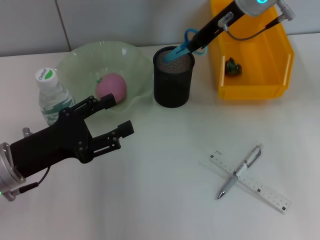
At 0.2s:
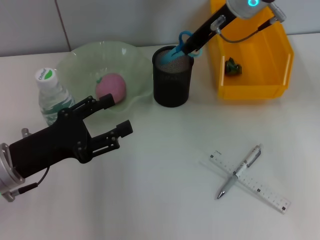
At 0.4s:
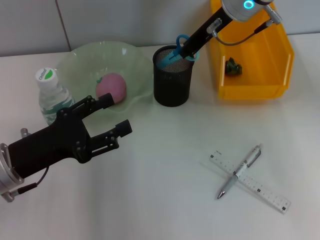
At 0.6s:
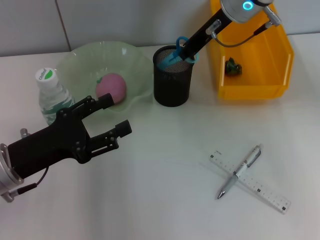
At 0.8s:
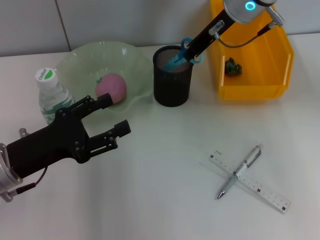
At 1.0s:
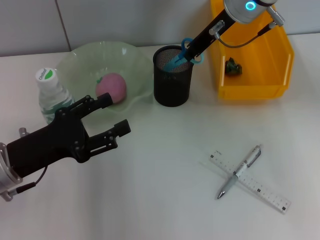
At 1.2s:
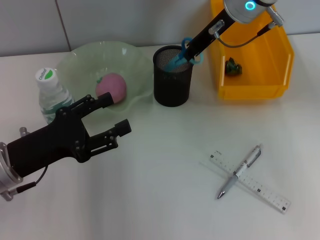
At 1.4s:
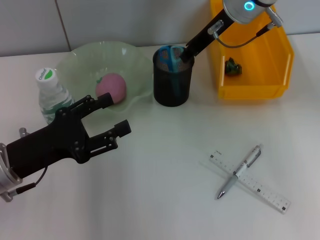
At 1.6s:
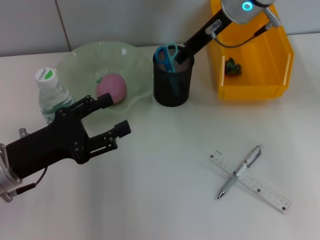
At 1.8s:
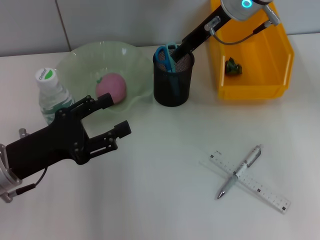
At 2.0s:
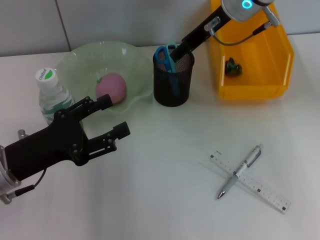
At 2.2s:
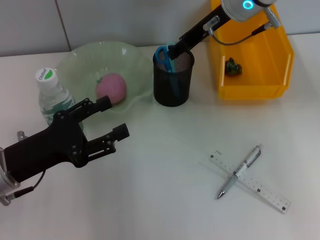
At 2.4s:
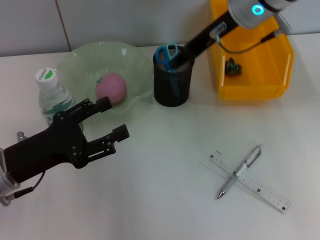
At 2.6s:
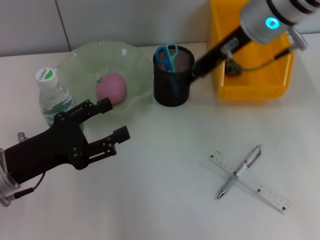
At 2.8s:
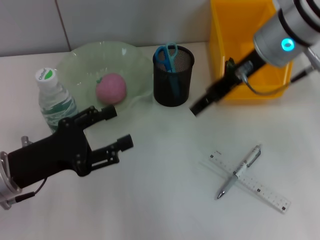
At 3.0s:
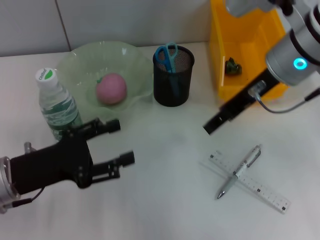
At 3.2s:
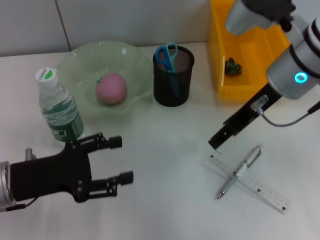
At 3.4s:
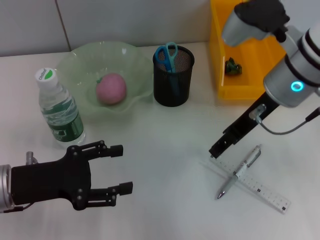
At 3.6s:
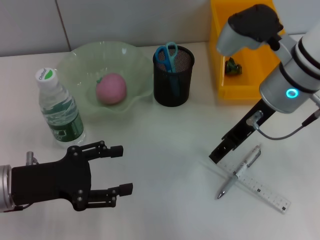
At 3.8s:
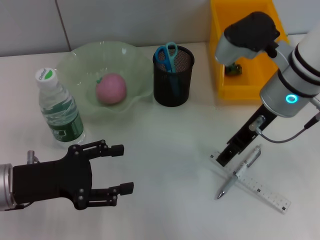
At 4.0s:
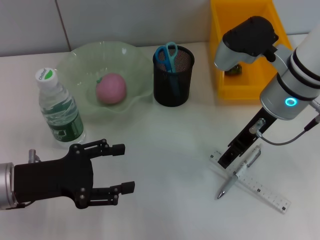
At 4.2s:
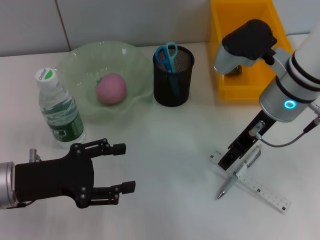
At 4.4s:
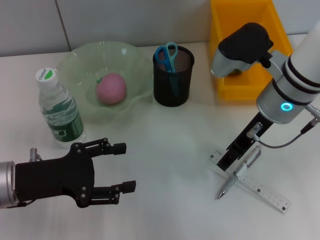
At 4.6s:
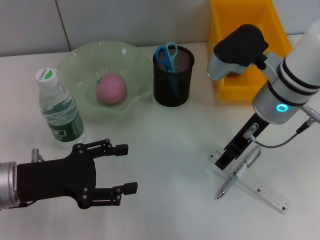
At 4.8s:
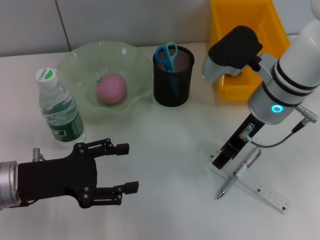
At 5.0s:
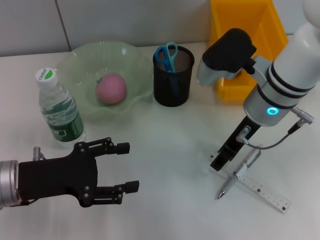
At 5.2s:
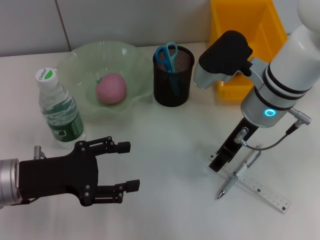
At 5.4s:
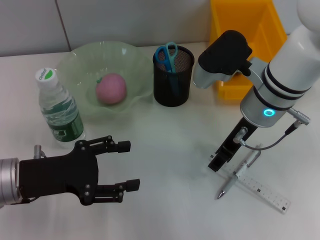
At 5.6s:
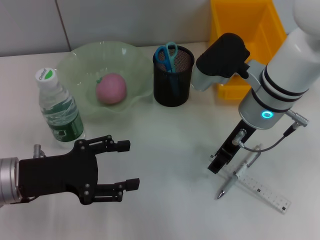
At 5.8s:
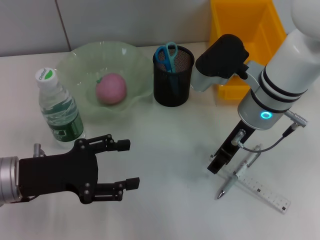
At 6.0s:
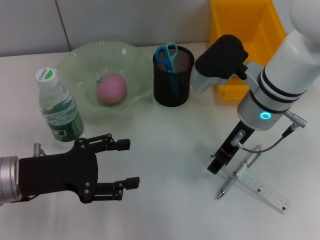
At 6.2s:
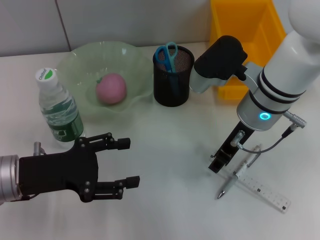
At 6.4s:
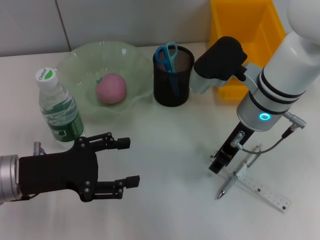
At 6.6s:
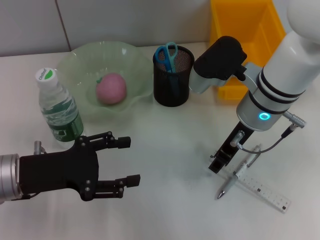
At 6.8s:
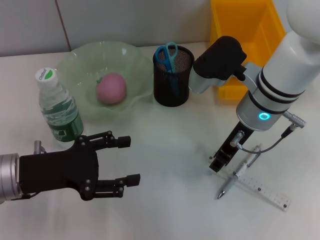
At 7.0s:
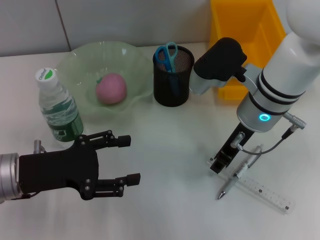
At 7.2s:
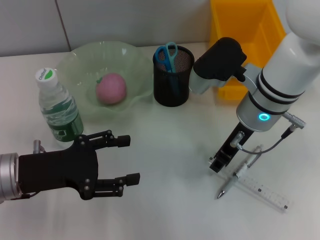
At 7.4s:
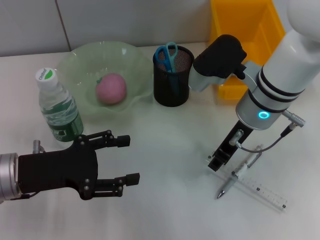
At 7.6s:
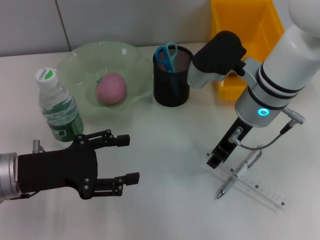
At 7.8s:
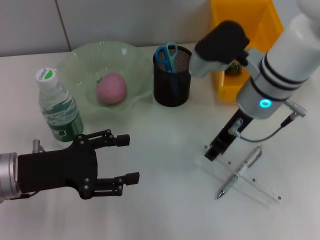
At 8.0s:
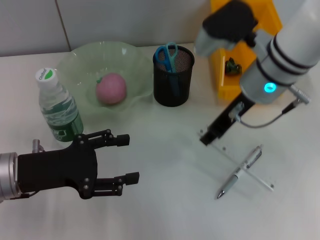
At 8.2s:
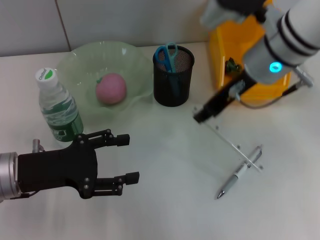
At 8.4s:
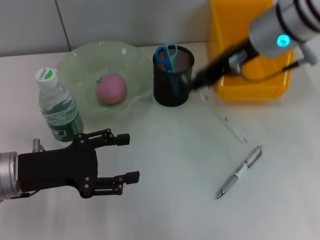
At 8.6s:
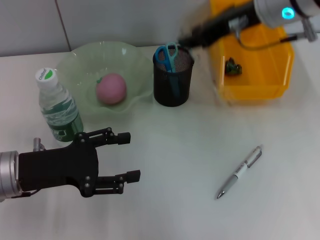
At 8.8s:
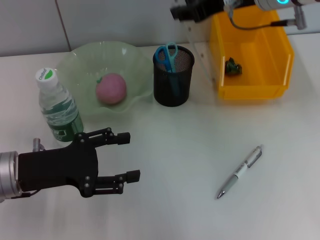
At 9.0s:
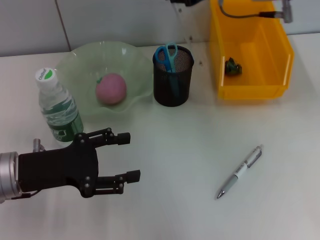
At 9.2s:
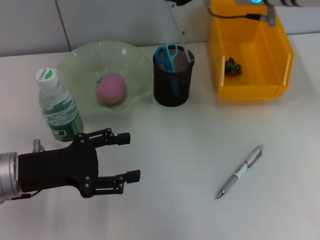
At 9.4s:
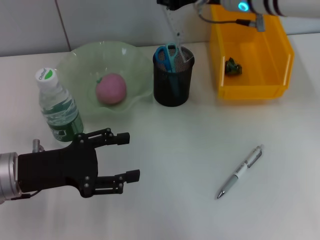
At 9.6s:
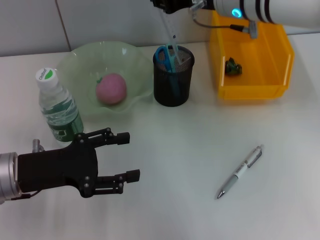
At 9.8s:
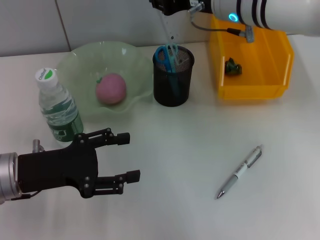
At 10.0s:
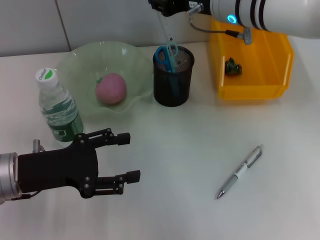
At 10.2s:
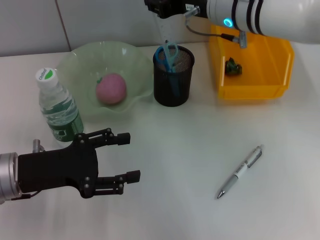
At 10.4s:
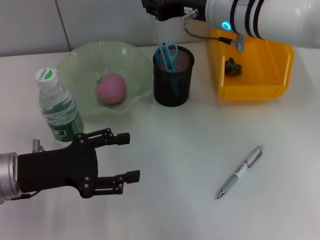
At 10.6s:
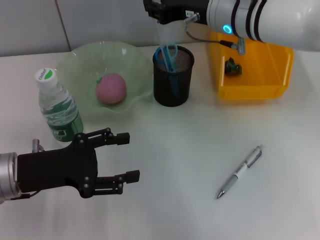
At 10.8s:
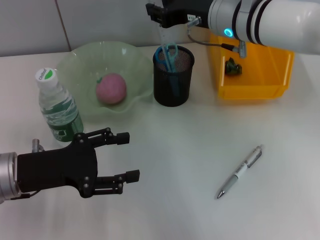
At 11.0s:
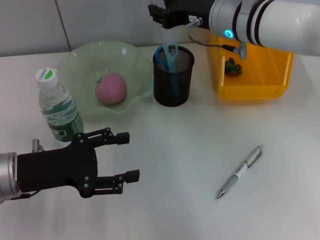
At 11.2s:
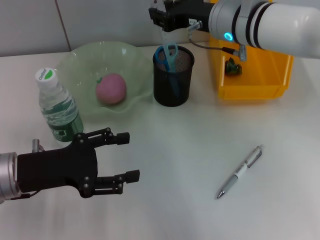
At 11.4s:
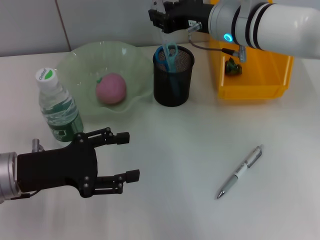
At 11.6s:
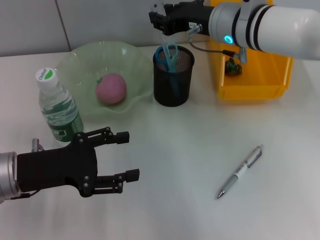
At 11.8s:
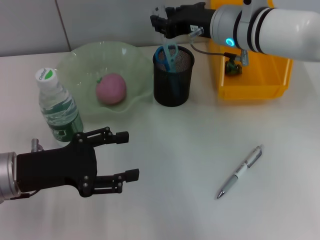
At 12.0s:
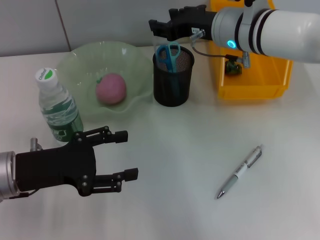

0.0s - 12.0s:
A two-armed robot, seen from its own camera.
Step, 1.6s - 7.0s: Grab the ruler with the right hand.
Step, 7.2s - 11.8s: Place the ruler into the pen holder with the right hand.
0.0s - 1.6s: The grippers make only small movements.
1.6s - 3.0s: The right gripper shifts approximately 10 cm backward, and opens.
3.0s - 4.4s: The right gripper is displaced downward by roughly 5 cm.
4.4s - 6.0s: There are only small adjustments of the grippers.
6.0s - 7.6s: The right gripper closes its fingers.
7.6s - 9.0s: The right gripper shifts about 10 cm upward.
9.0s - 10.4s: The right gripper is displaced downward by roughly 5 cm.
10.4s - 12.0s: The grippers move only a little.

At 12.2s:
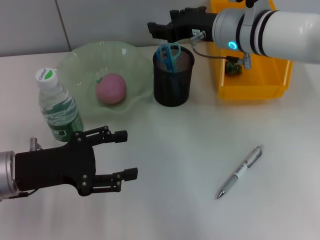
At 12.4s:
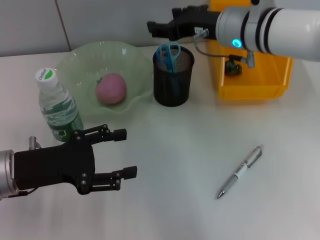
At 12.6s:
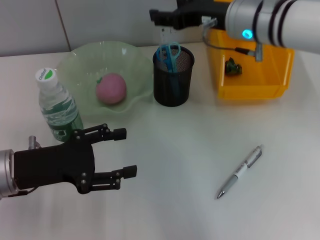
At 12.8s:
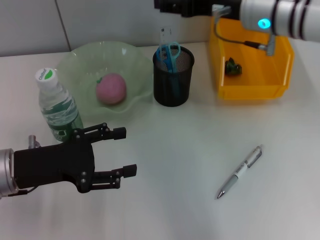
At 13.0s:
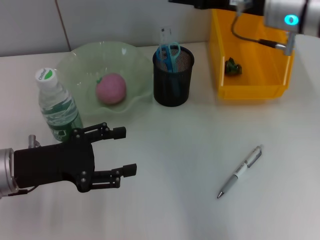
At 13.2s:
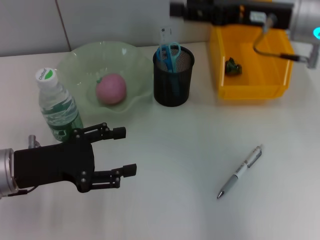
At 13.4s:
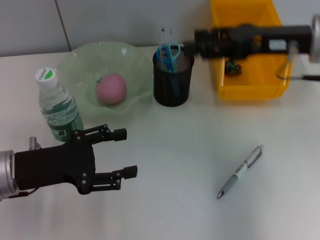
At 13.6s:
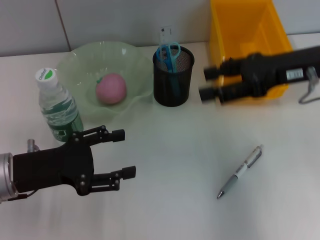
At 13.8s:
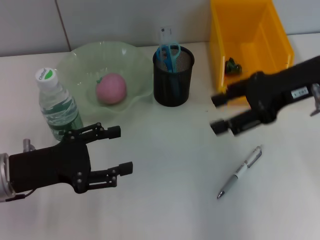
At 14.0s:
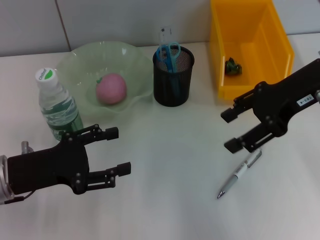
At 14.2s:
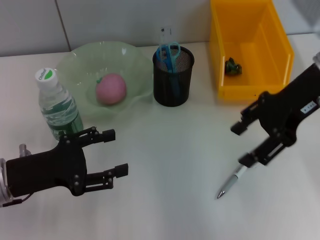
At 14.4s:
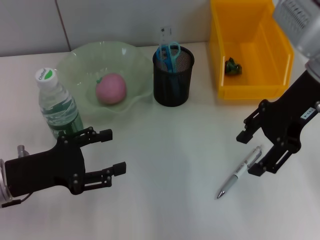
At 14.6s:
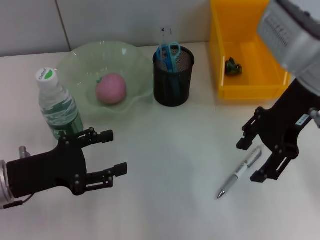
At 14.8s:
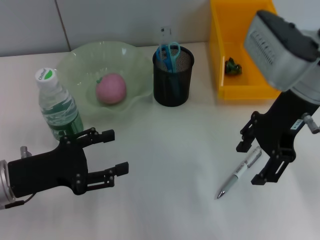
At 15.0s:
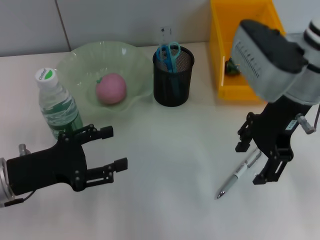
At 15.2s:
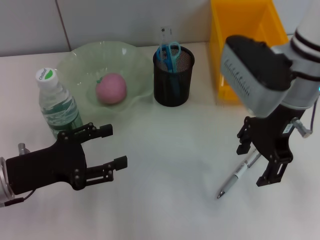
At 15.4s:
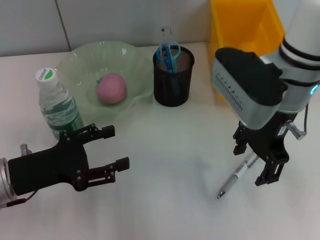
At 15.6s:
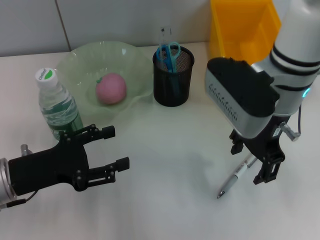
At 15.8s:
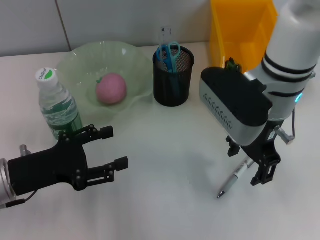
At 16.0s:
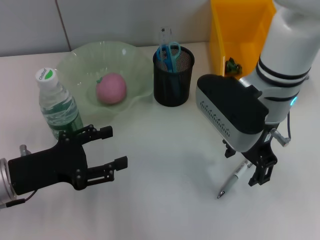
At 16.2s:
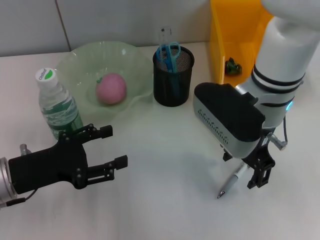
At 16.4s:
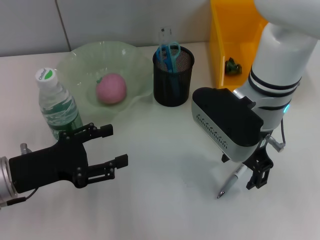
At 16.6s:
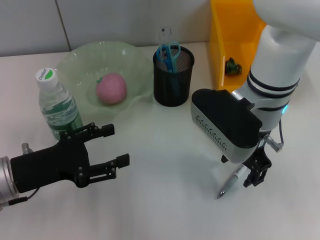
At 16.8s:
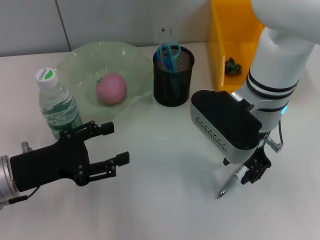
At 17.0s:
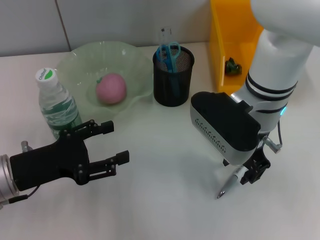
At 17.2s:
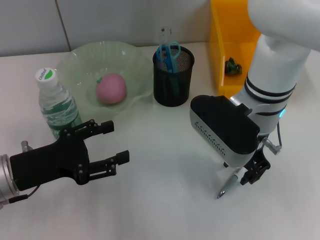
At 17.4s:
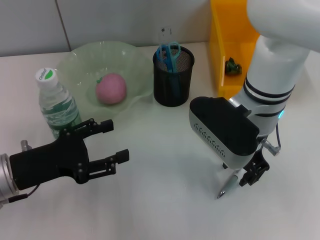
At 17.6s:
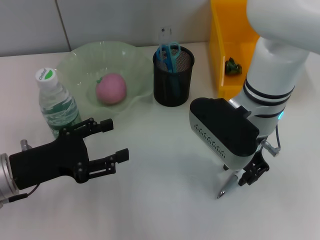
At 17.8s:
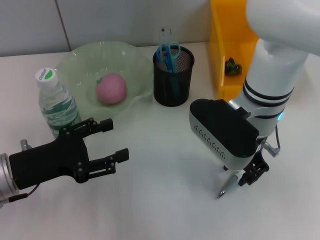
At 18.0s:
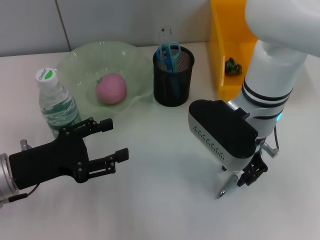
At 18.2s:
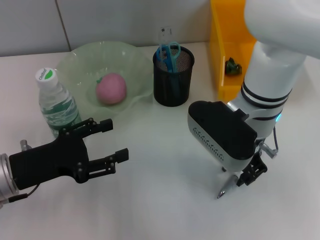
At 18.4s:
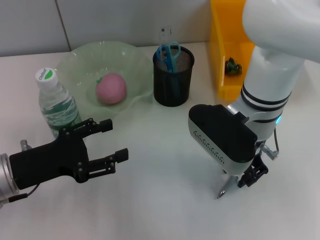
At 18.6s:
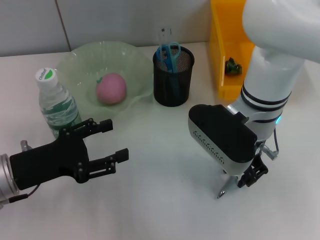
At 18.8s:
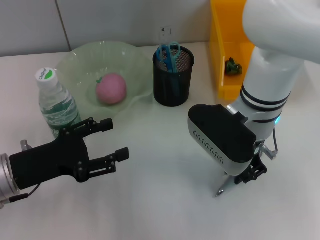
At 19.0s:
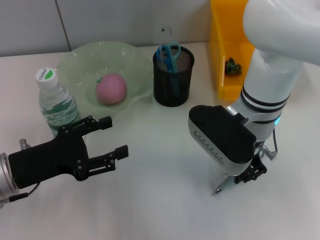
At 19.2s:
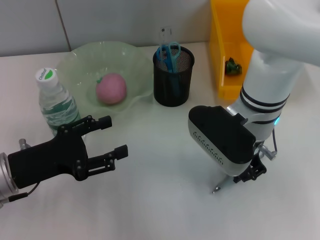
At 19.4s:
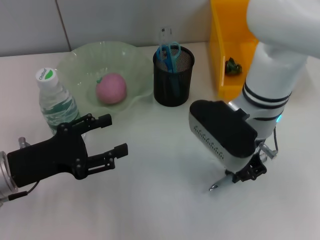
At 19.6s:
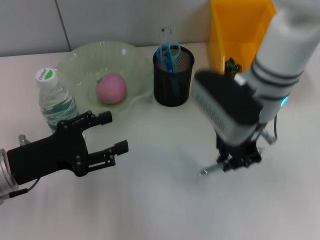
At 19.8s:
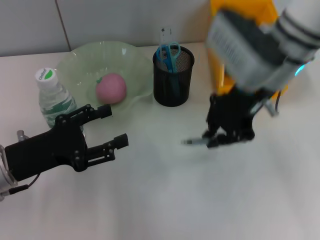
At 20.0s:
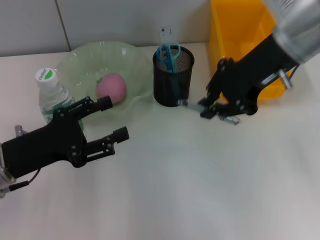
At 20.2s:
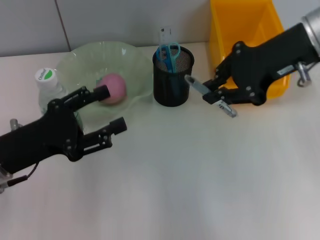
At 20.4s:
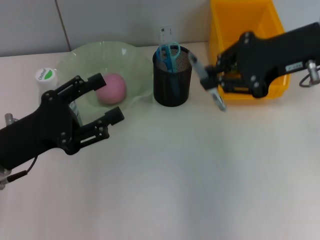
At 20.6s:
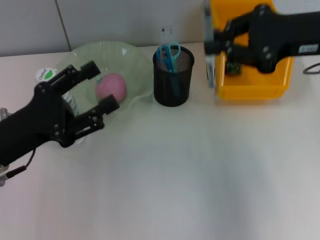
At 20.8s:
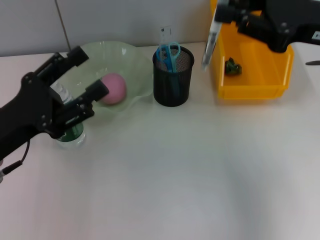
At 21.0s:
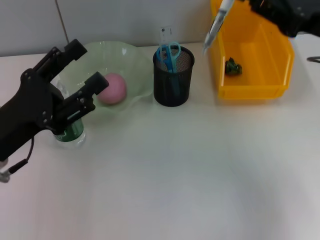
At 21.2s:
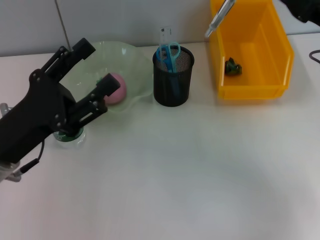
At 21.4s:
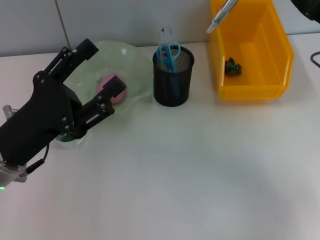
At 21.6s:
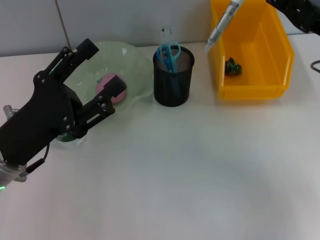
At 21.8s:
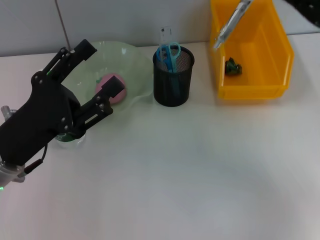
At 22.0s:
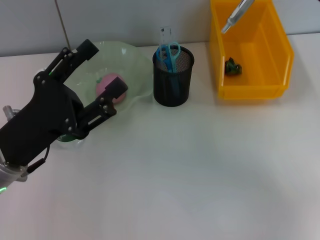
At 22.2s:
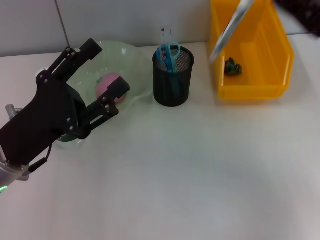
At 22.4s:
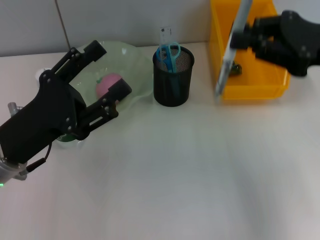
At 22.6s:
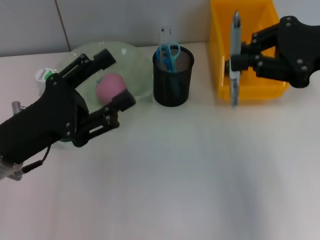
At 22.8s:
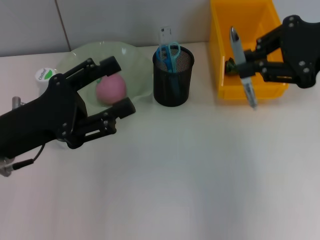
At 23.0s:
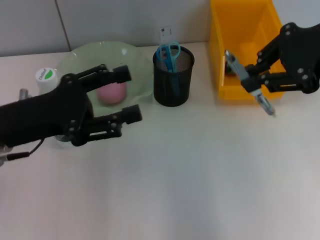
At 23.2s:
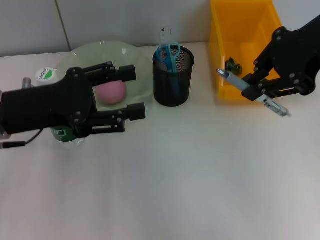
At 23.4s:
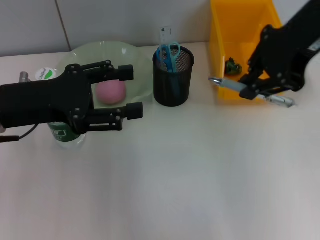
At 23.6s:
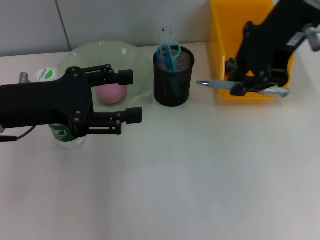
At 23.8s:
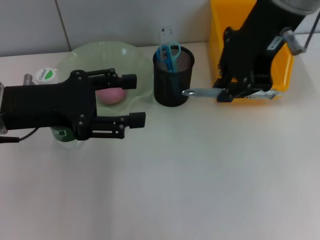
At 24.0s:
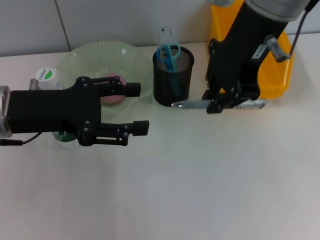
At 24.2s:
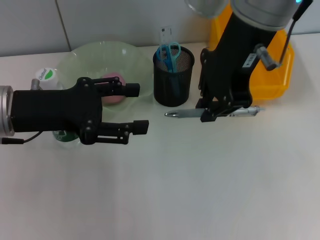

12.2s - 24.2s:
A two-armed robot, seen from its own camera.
Step, 12.2s - 19.0s: Grab the gray spring-action pen with the right hand.
12.2s - 13.8s: The right gripper heads to the right and backward, covering approximately 15 cm.
13.8s - 15.2s: The right gripper goes approximately 10 cm to the left.
15.2s - 16.6s: The right gripper ends up approximately 5 cm from where it was.
16.6s - 18.2s: The right gripper closes up.
18.2s - 19.8s: The right gripper is displaced upward by approximately 5 cm, and closes.
19.8s - 21.2s: The right gripper shifts approximately 15 cm to the right.
21.2s - 22.6s: The right gripper goes approximately 5 cm upward.
22.6s - 24.2s: The left gripper shifts about 10 cm upward and forward. Meanwhile the right gripper moves to the left and upward, approximately 20 cm.
